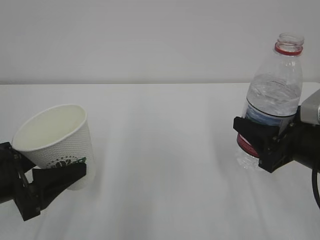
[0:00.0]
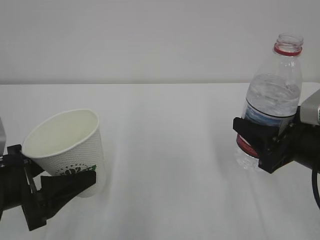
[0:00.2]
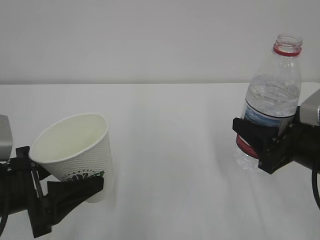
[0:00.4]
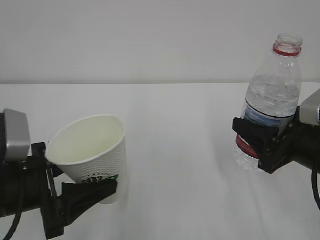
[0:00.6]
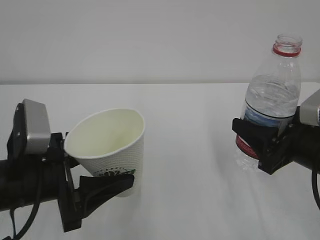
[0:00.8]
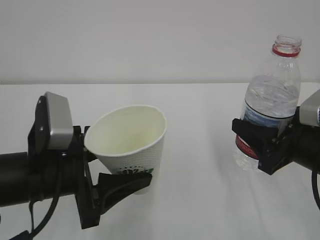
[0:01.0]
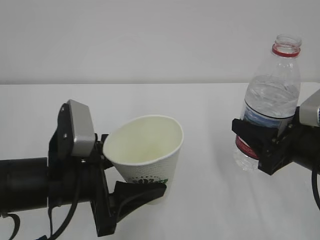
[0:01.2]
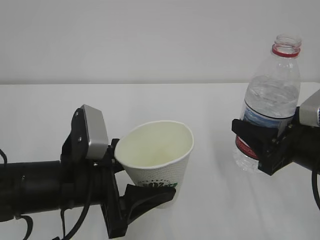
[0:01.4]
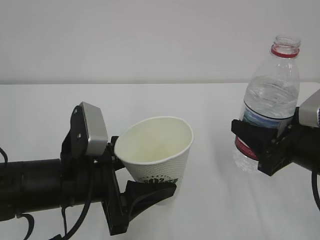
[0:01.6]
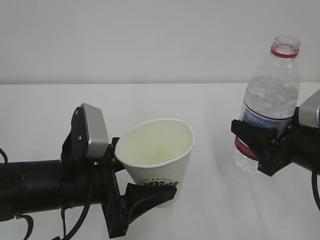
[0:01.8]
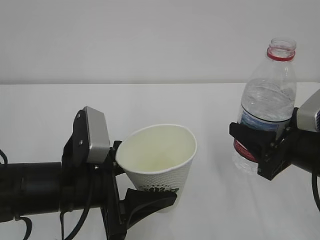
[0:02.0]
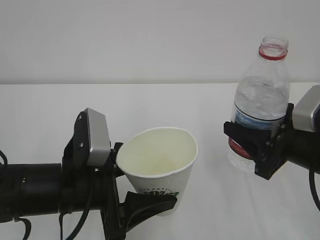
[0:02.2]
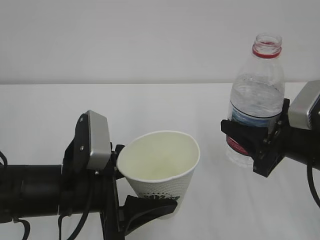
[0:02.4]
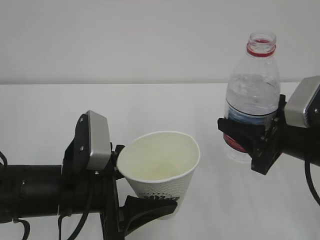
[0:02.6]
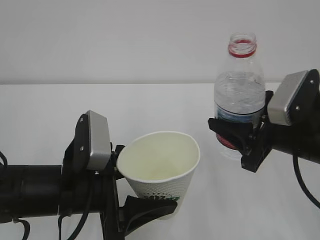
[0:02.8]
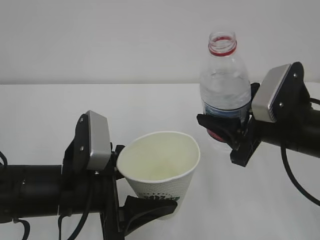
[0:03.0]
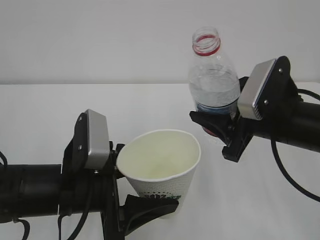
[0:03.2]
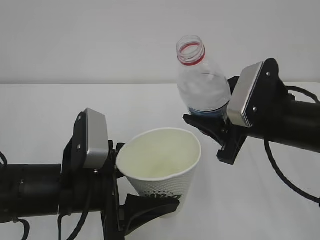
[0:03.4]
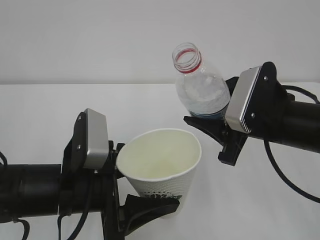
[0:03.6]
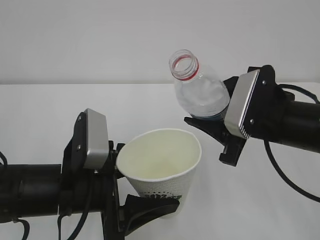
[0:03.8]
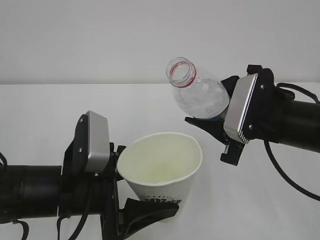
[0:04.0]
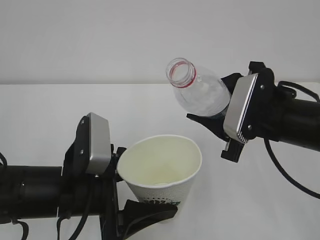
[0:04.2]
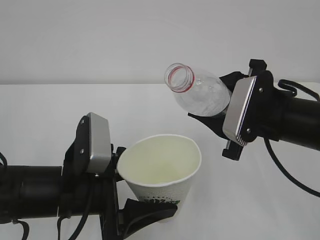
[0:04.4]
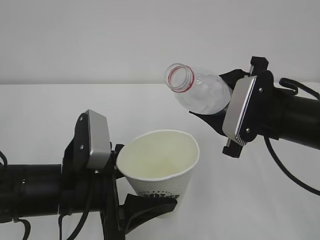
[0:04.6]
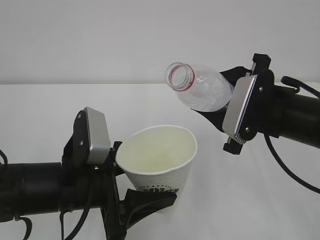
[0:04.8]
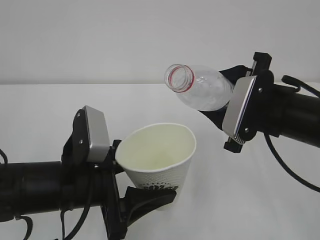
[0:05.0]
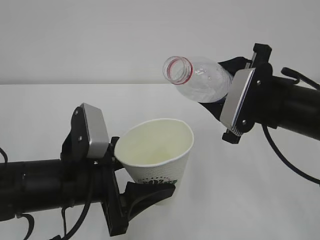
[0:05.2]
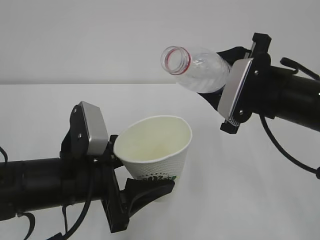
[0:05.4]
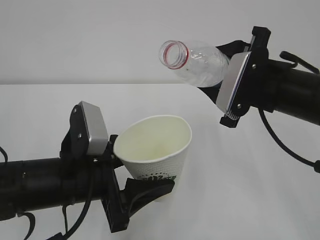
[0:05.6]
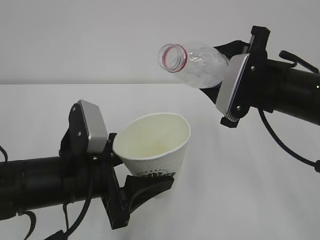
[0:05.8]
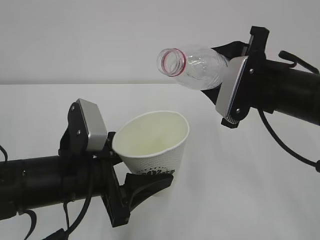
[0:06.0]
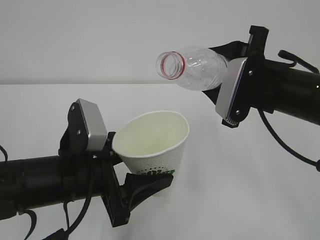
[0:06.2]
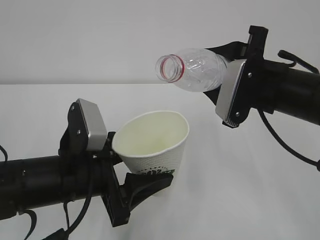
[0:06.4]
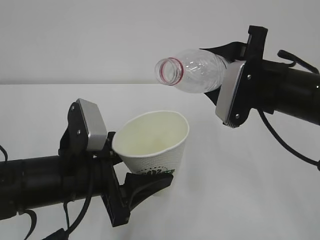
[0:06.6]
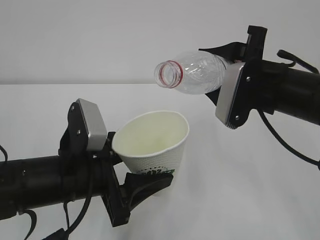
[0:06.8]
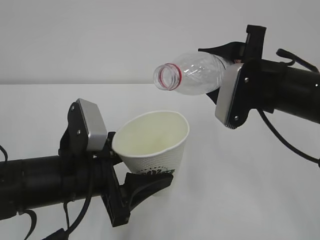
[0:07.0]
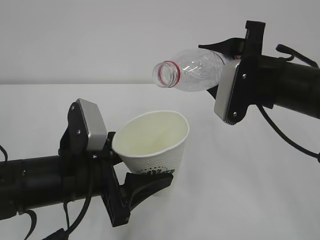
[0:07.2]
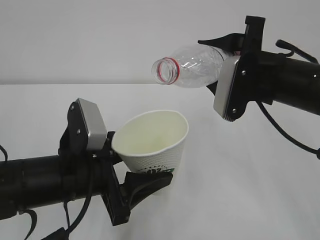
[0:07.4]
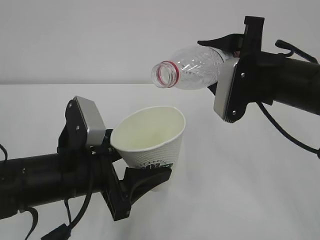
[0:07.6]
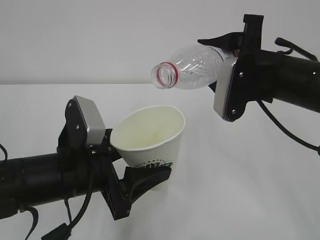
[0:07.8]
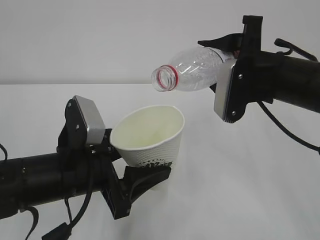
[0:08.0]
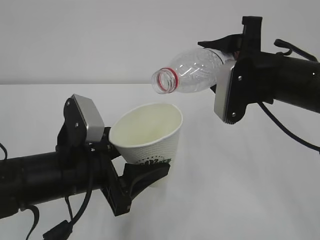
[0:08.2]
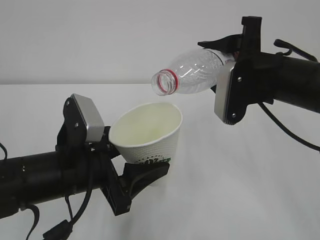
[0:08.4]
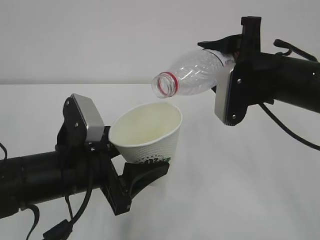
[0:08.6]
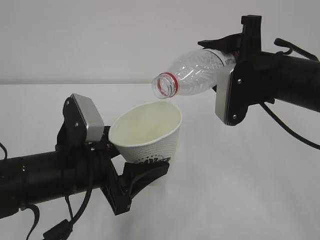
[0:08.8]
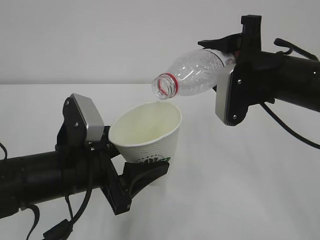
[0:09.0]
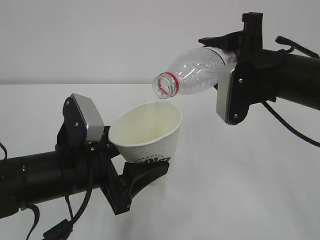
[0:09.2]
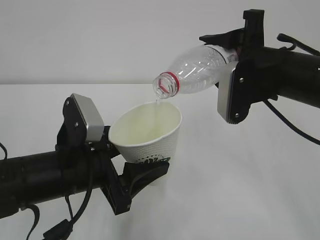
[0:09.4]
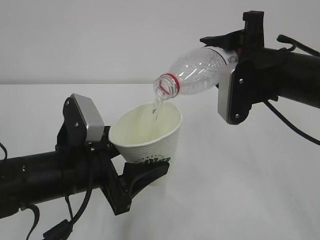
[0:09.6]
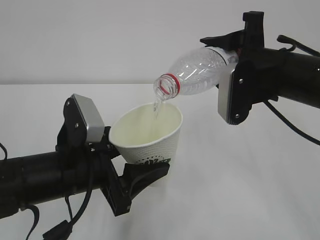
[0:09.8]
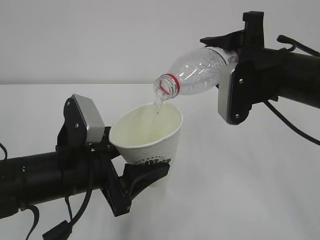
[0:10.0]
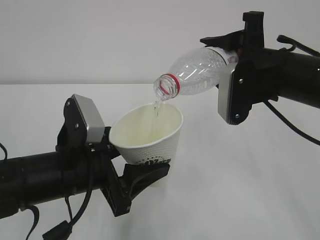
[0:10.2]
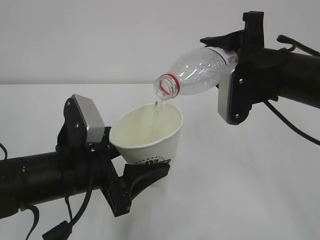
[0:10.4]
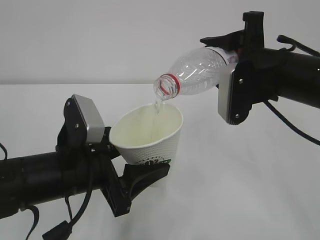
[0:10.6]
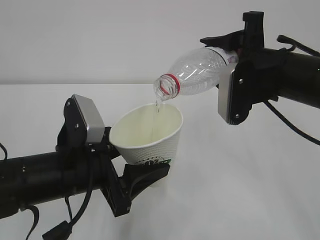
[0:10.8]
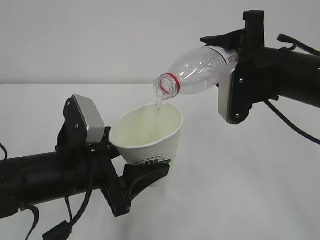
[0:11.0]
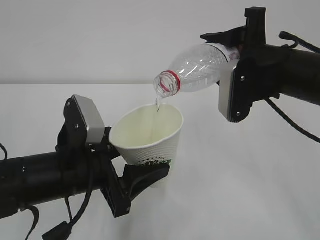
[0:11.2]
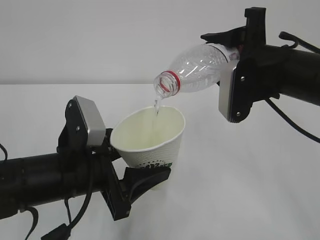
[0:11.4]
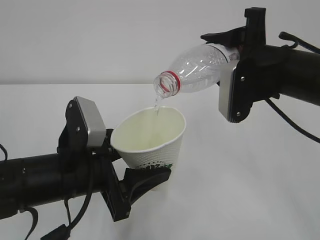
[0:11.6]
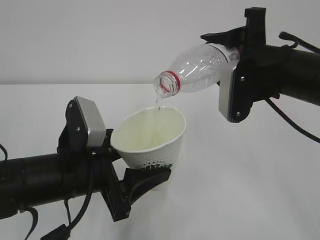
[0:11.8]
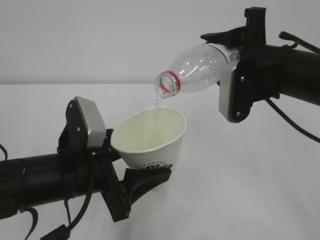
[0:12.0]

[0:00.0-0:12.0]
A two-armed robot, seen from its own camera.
0:00.0 to 0:01.6: The left gripper heads to the right, covering roughly 10 cm.
0:01.6 to 0:03.0: The right gripper changes place by some 5 cm.
0:06.0 to 0:07.6: There are only small adjustments of the grippers.
0:07.6 to 0:09.0: There are only small adjustments of the grippers.
0:09.0 to 0:12.0: Both grippers stay about where they are.

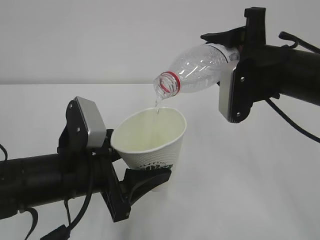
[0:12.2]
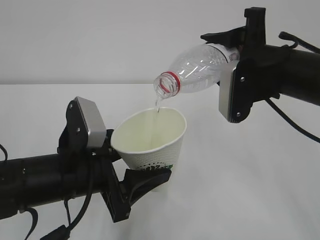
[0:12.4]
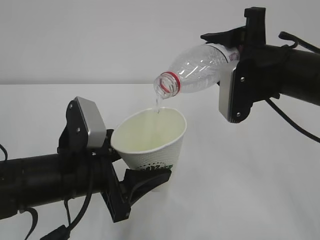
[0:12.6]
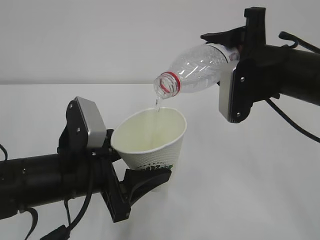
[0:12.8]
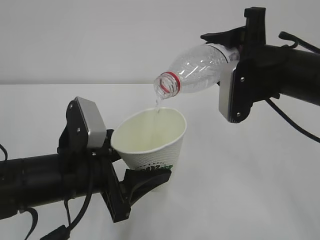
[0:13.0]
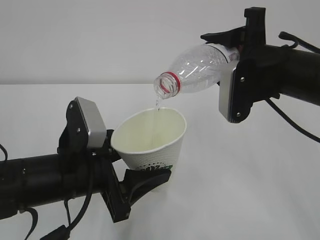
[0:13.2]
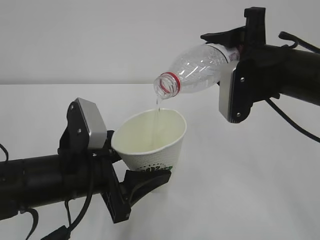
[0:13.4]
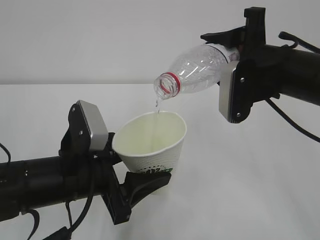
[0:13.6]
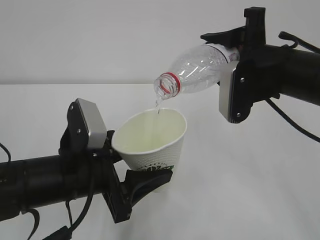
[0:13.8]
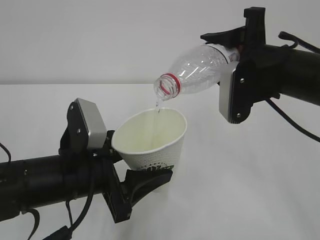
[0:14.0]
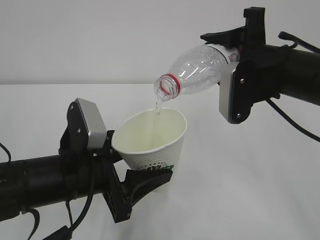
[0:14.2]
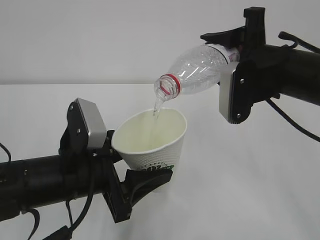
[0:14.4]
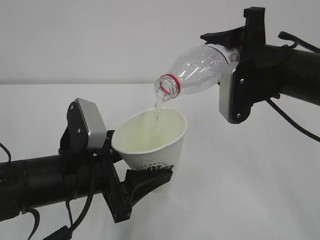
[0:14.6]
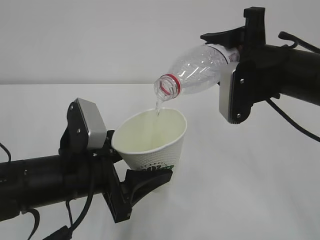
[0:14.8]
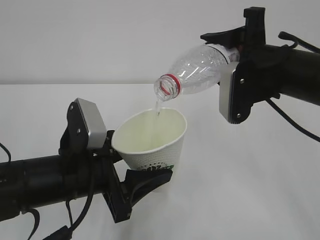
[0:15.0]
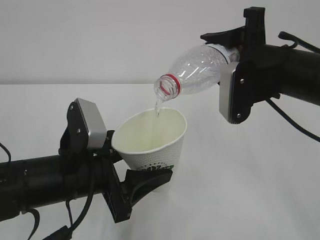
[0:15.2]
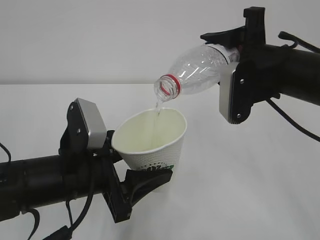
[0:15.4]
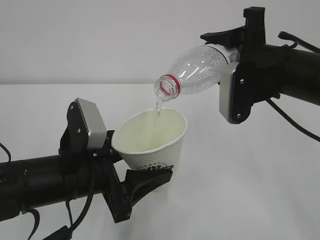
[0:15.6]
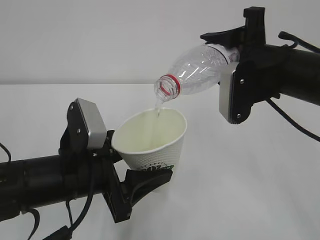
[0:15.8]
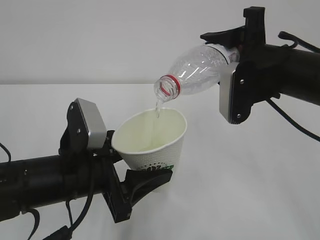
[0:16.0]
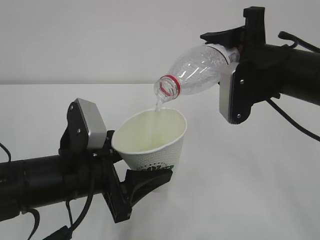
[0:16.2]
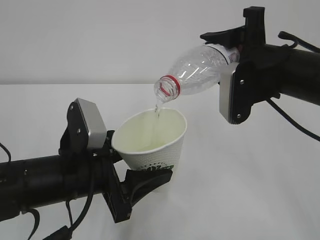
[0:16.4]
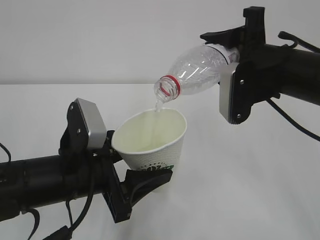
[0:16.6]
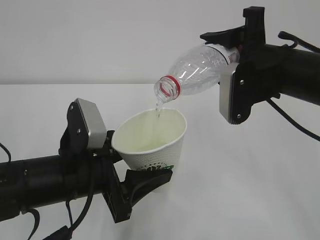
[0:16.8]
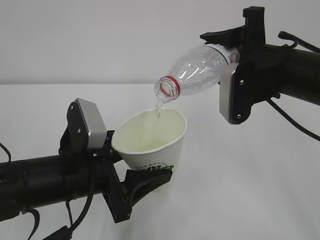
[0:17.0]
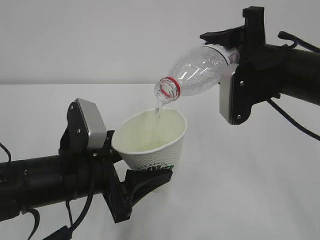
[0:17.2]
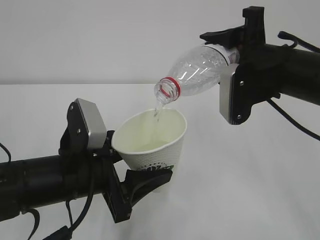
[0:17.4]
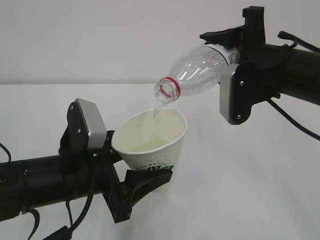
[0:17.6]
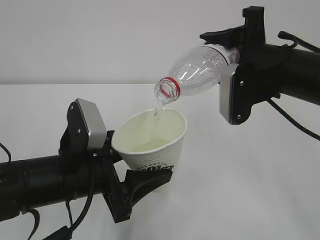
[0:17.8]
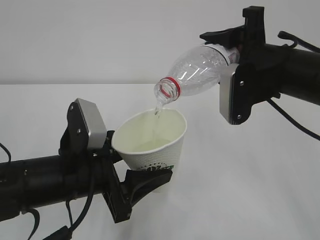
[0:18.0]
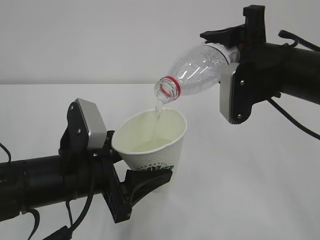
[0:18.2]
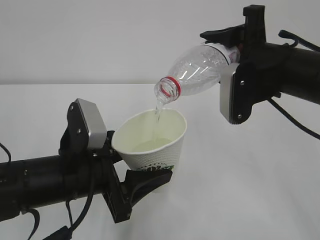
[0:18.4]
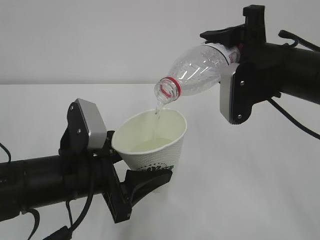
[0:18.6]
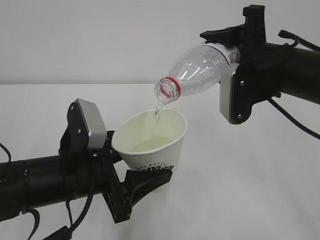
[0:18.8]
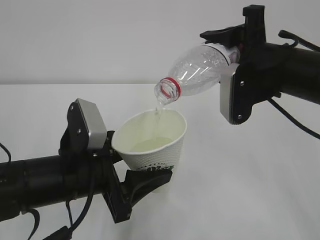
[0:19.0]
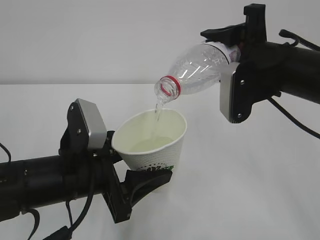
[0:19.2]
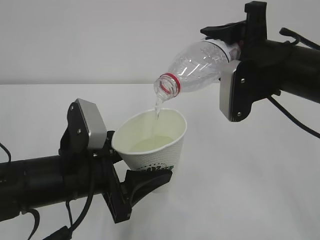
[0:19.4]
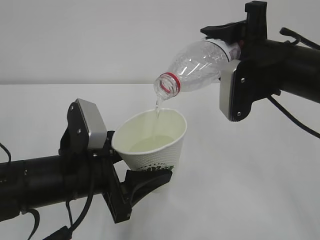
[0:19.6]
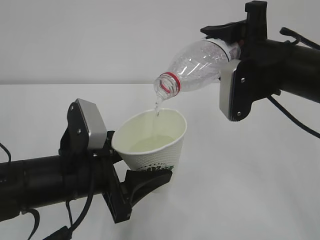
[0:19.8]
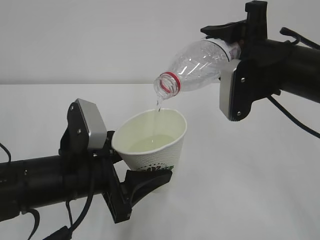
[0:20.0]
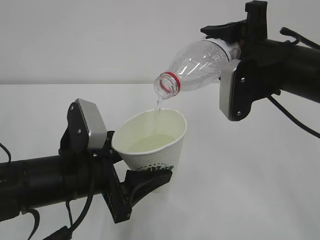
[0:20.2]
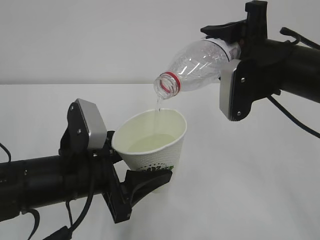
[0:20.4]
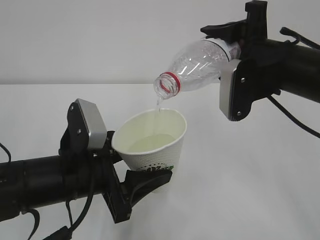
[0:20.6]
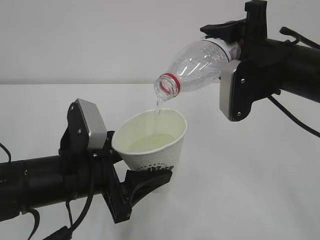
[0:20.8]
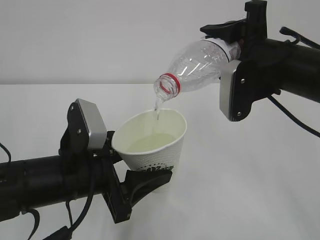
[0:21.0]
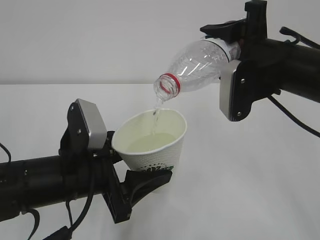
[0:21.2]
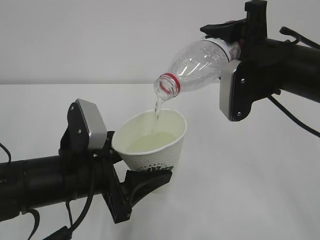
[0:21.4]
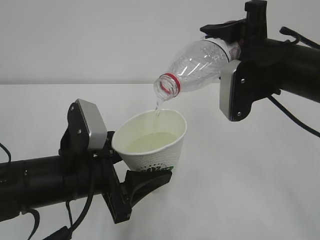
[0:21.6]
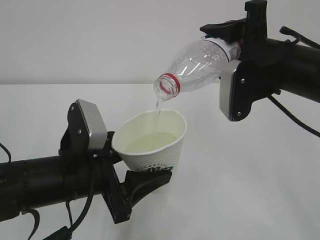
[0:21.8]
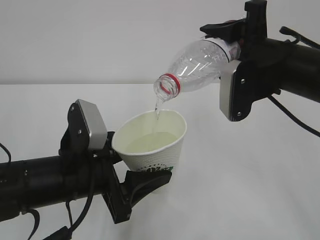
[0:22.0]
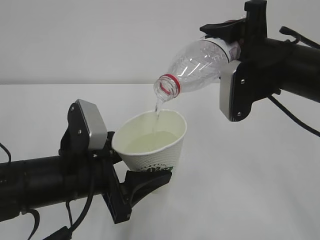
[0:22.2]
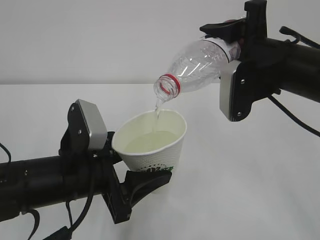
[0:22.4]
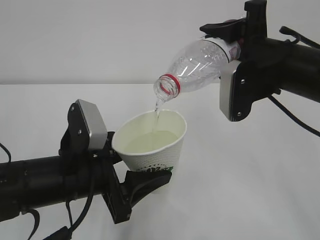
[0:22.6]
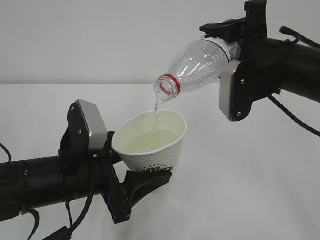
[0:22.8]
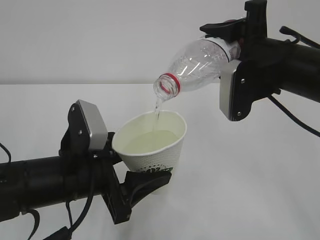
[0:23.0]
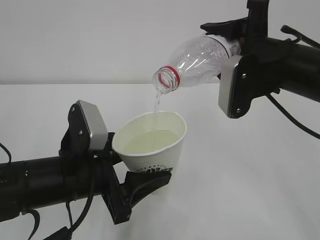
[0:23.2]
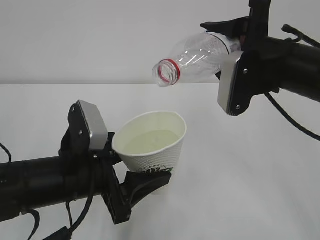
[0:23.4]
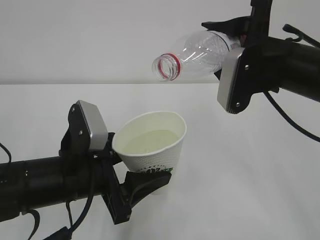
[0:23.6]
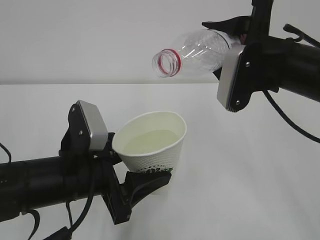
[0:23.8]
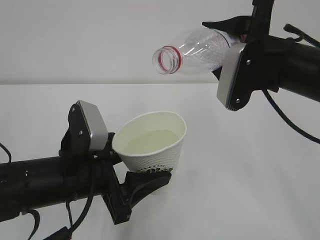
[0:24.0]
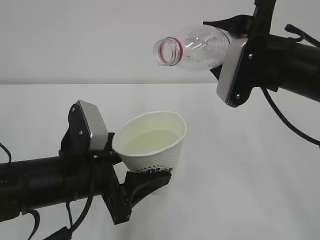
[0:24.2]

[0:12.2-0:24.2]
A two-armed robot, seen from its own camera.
0:12.2 to 0:18.2: Neither gripper changes place.
0:18.2 to 0:22.6: Both grippers stay put.
0:22.6 to 0:24.2: The grippers move only a little.
